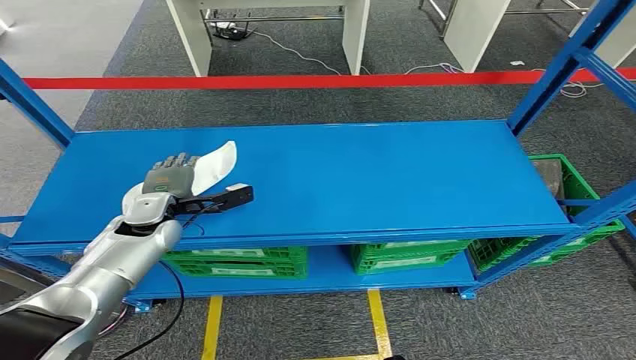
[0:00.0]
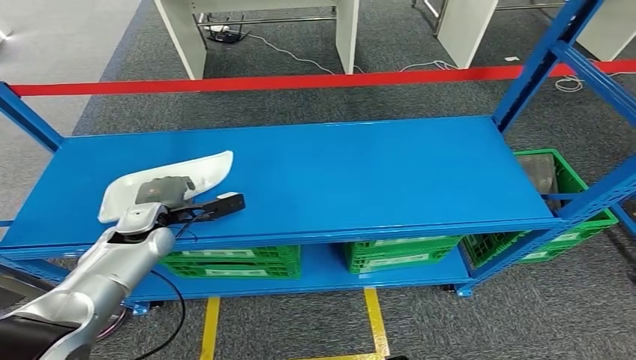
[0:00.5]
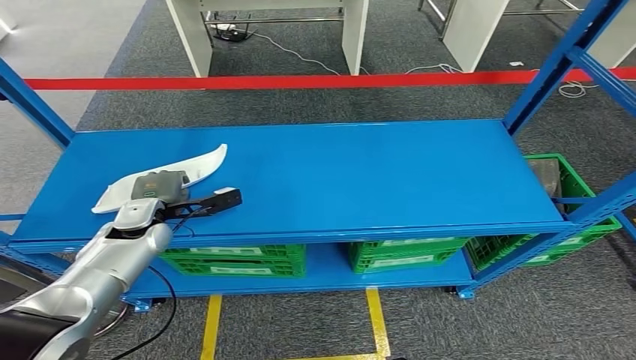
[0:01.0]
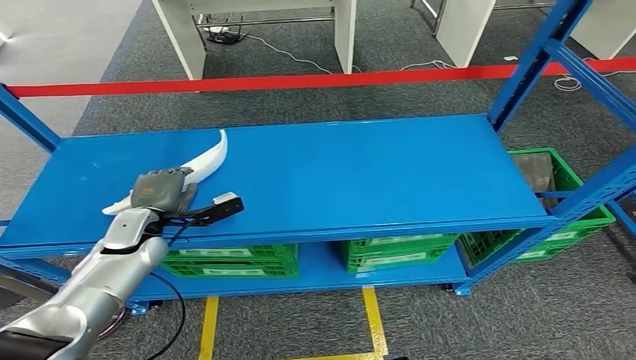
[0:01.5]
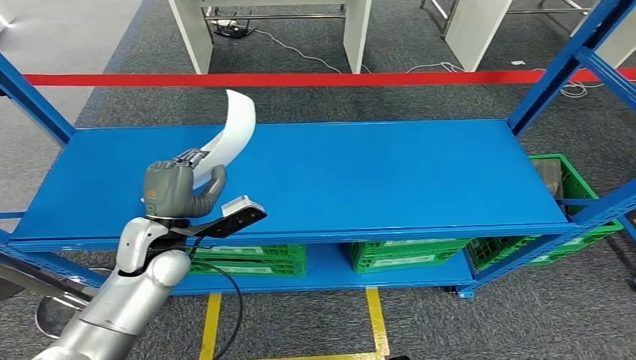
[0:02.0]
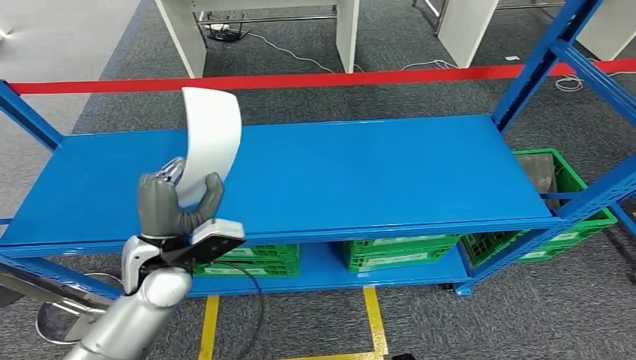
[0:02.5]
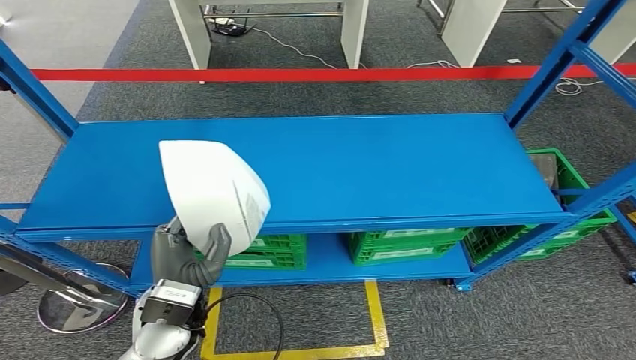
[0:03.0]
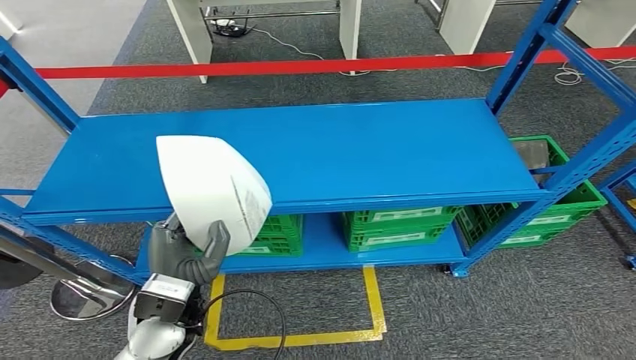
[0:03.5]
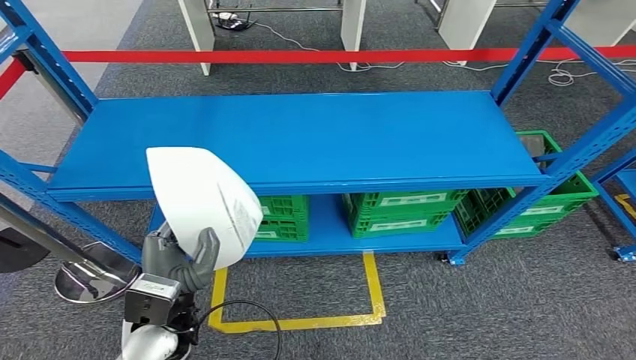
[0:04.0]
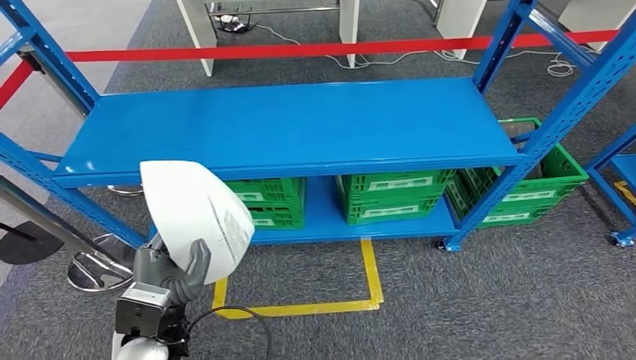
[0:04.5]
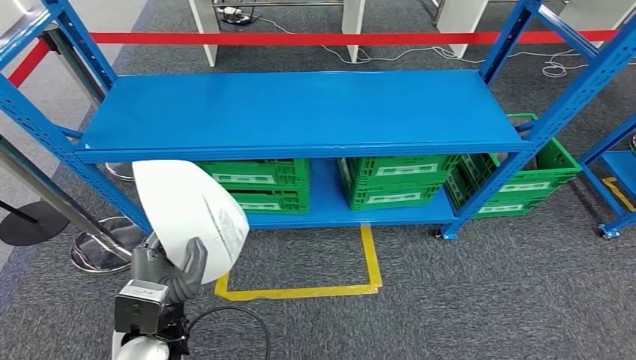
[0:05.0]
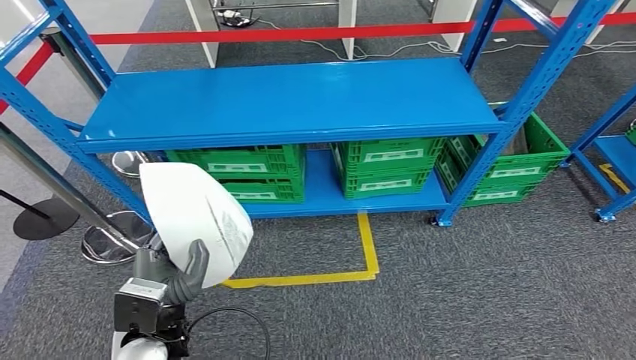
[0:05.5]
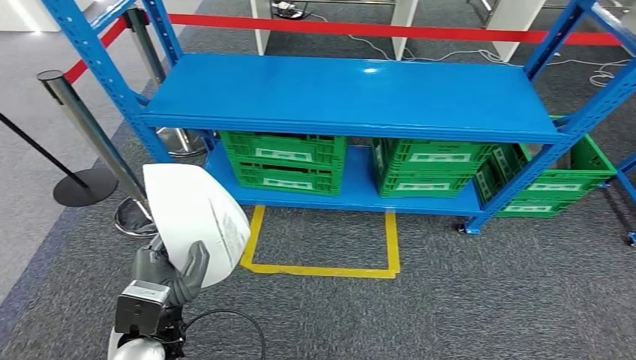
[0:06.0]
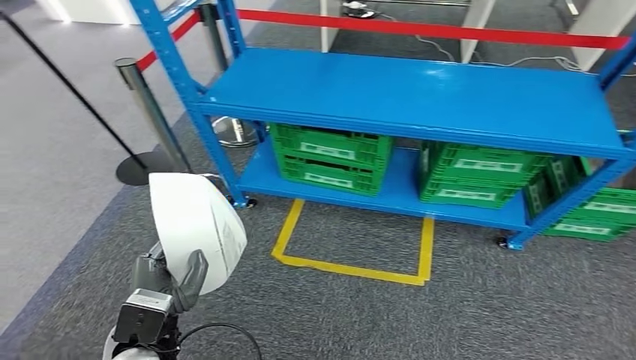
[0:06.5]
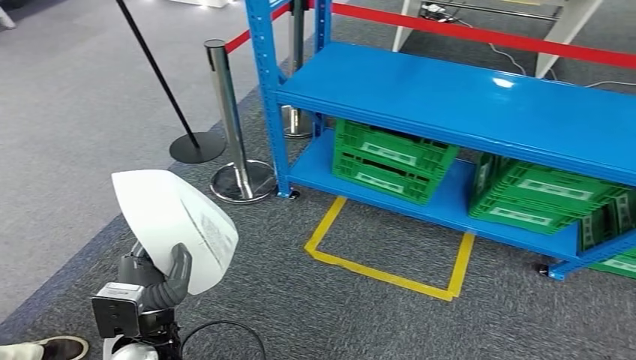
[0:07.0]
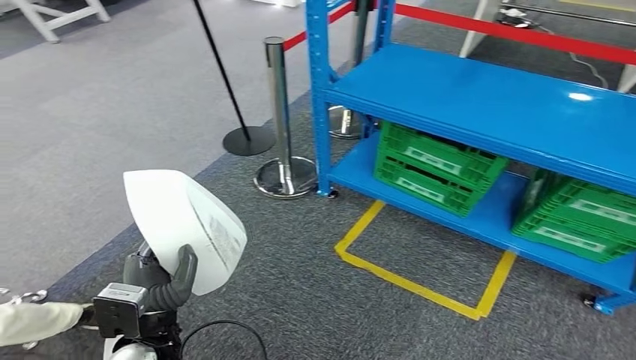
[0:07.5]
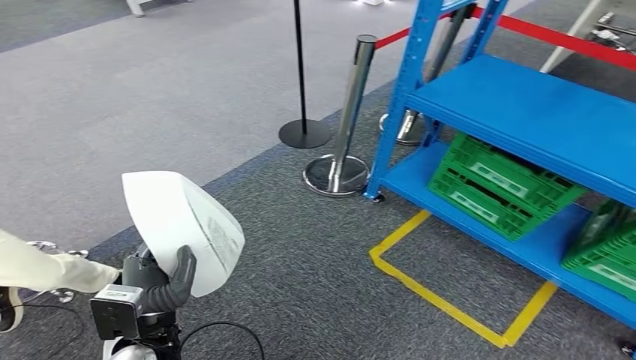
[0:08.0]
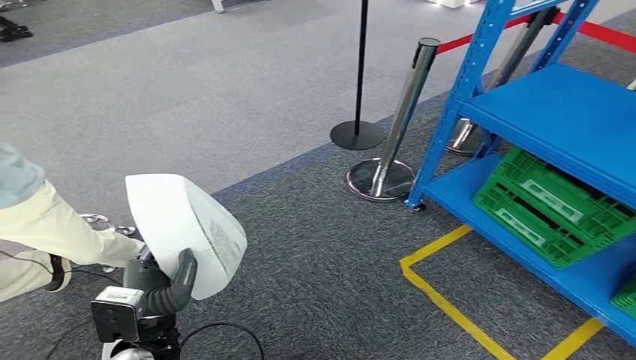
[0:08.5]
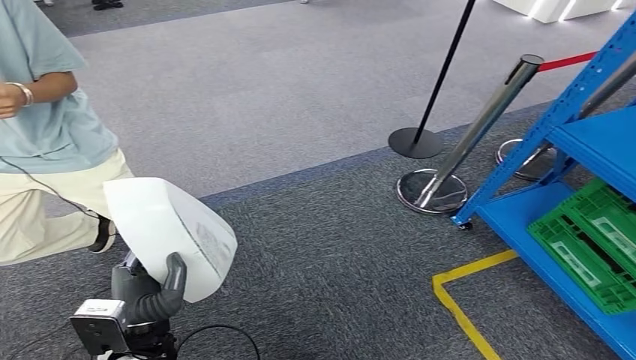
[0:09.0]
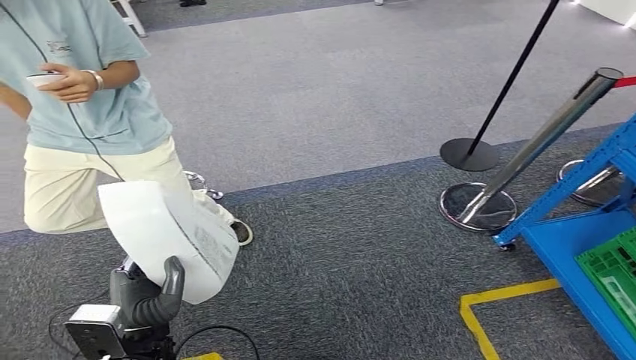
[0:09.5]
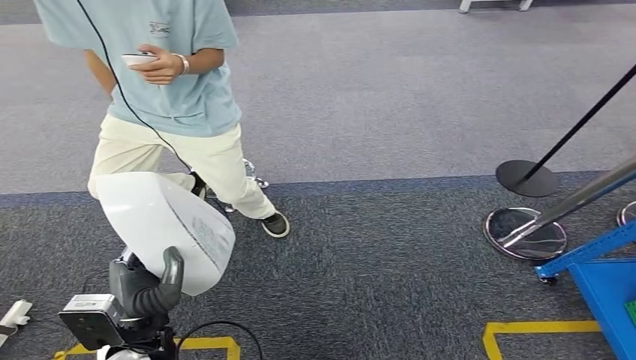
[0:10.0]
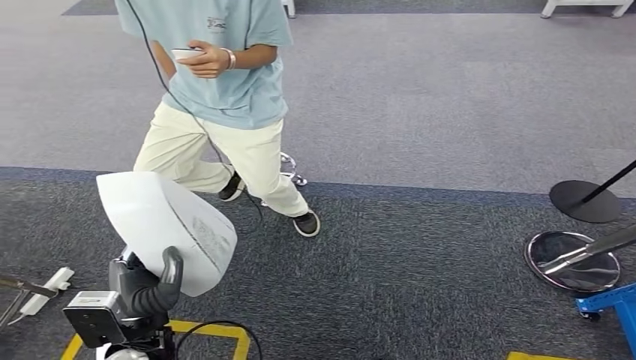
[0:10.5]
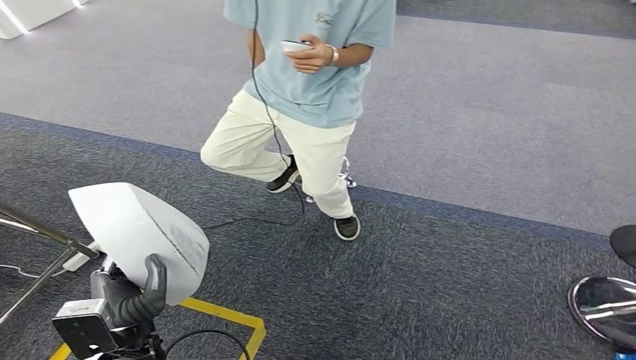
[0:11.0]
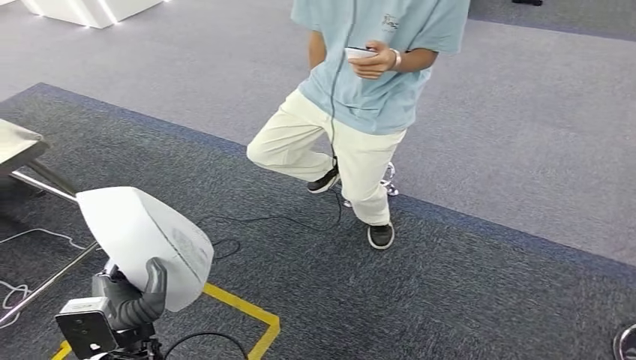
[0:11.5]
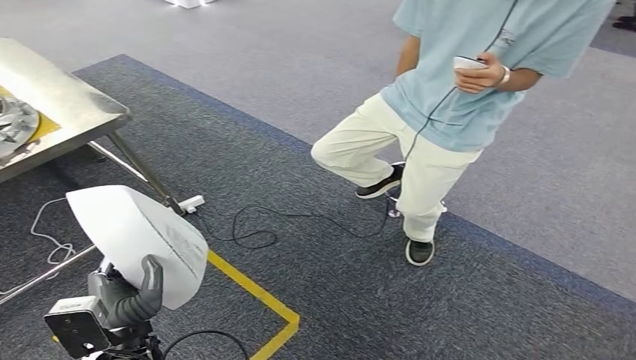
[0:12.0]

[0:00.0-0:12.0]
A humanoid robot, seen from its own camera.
Step, 0:00.0 to 0:03.0: Pick up the small component from the shelf.

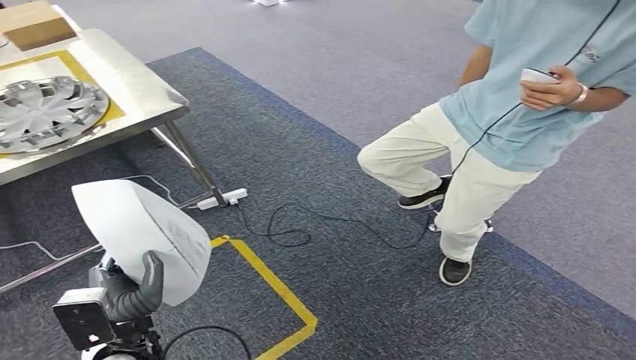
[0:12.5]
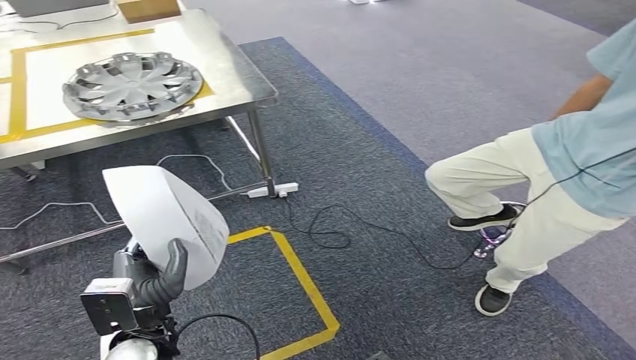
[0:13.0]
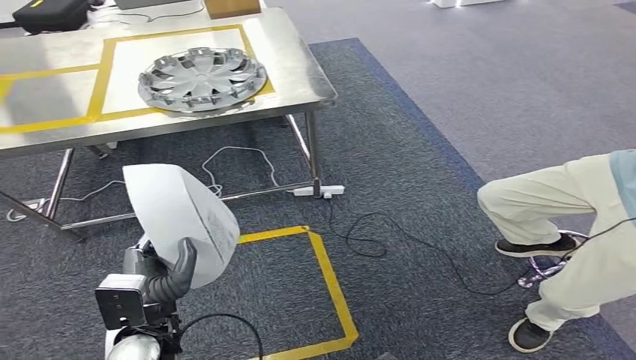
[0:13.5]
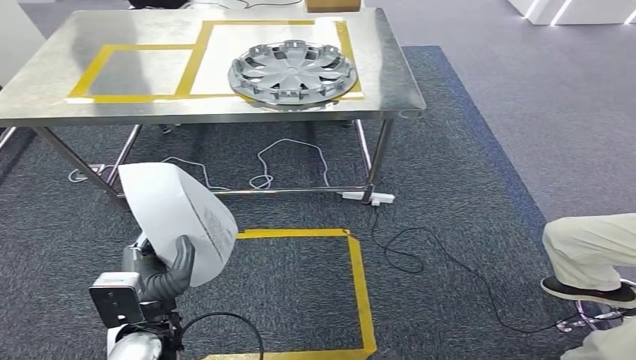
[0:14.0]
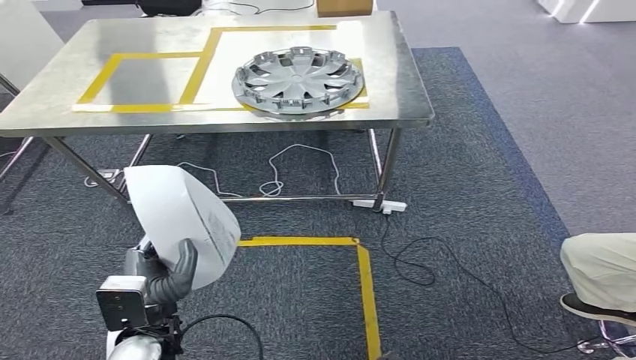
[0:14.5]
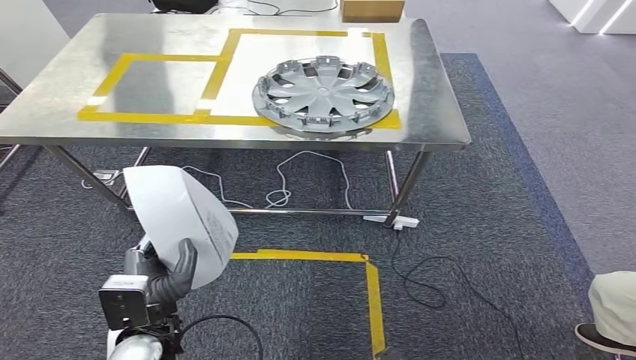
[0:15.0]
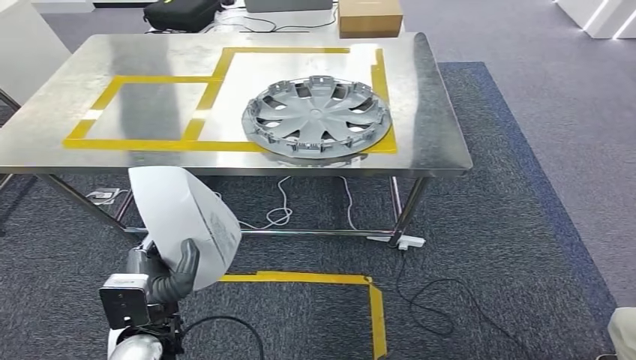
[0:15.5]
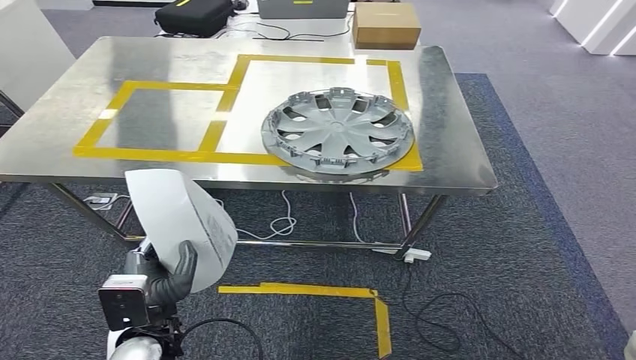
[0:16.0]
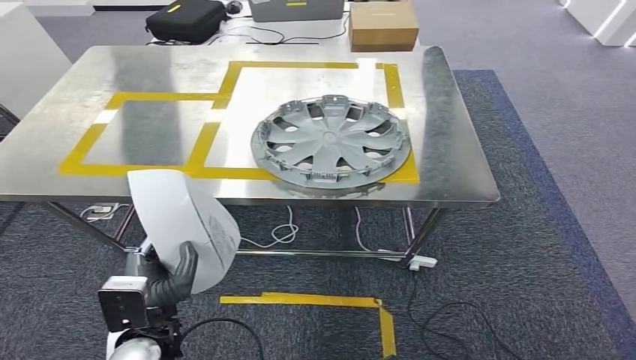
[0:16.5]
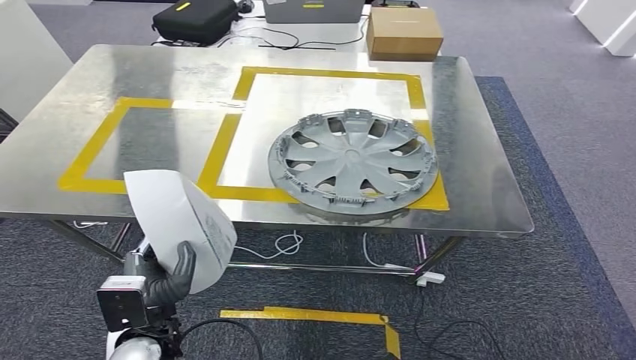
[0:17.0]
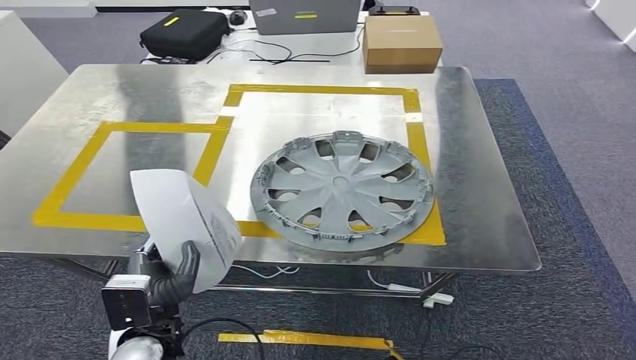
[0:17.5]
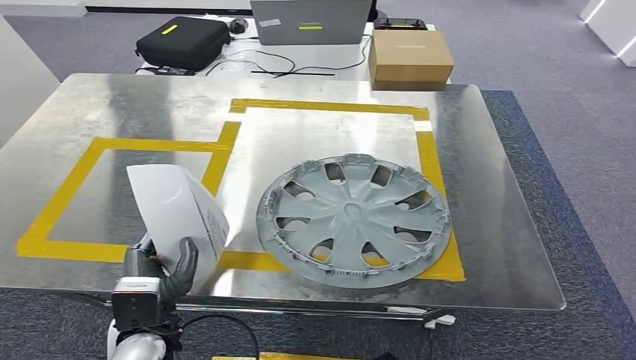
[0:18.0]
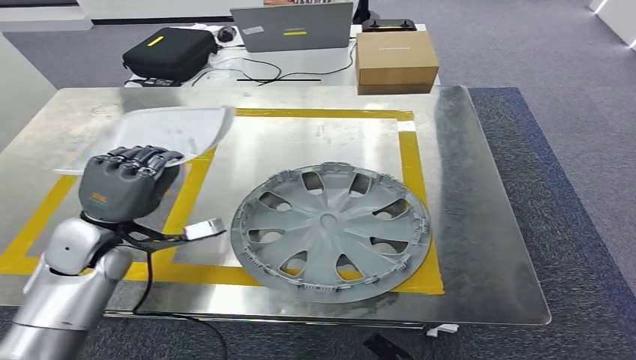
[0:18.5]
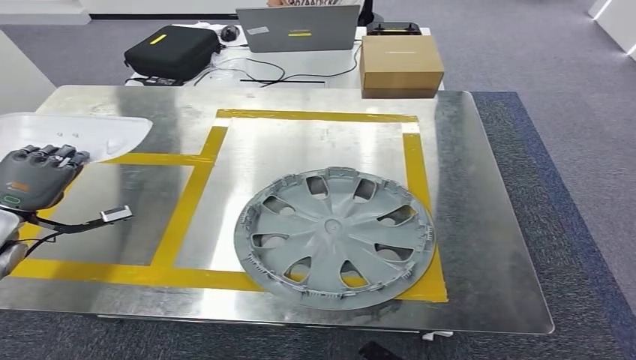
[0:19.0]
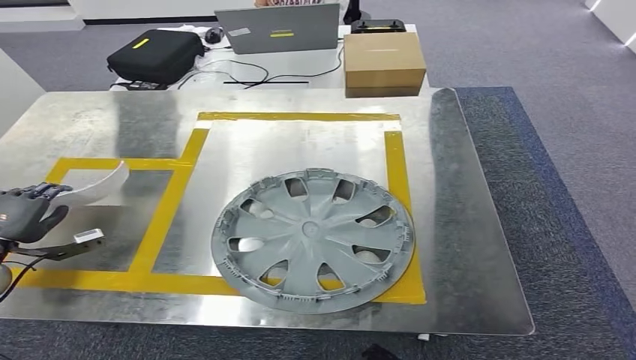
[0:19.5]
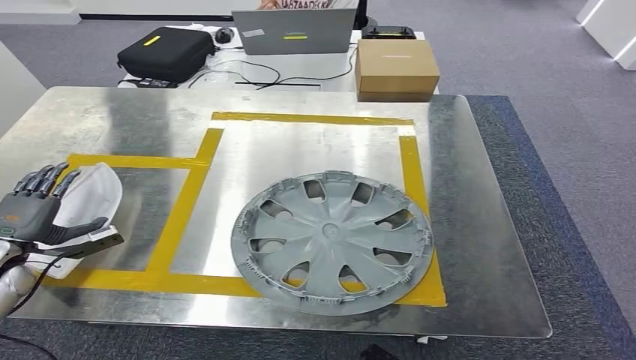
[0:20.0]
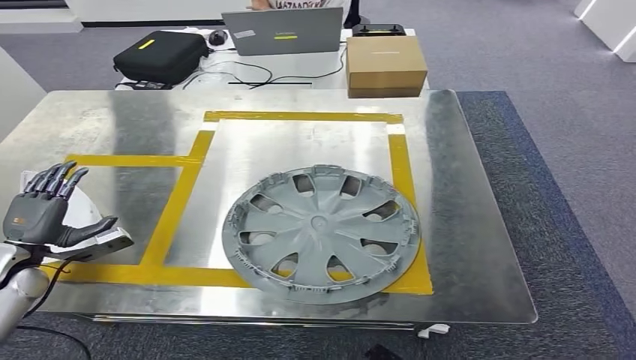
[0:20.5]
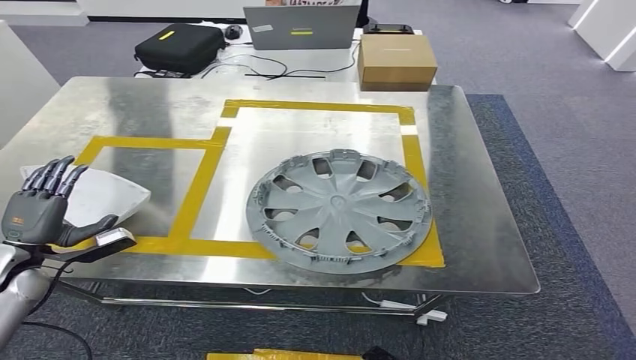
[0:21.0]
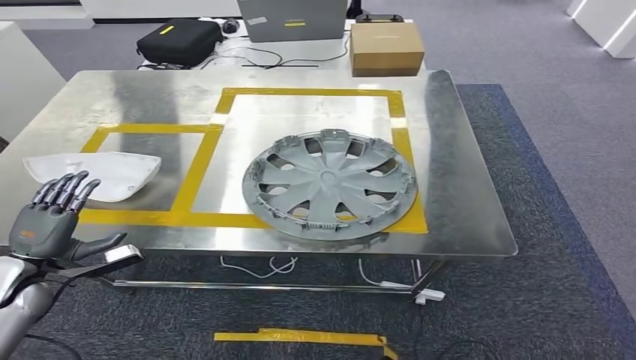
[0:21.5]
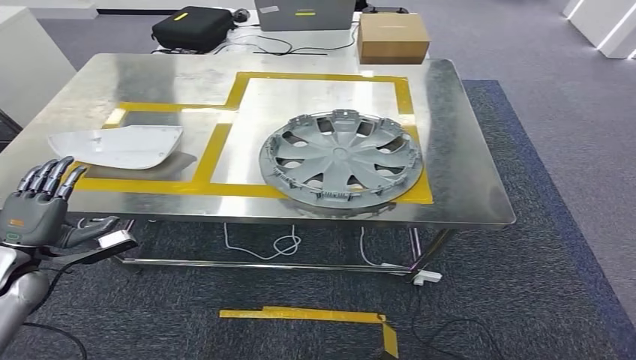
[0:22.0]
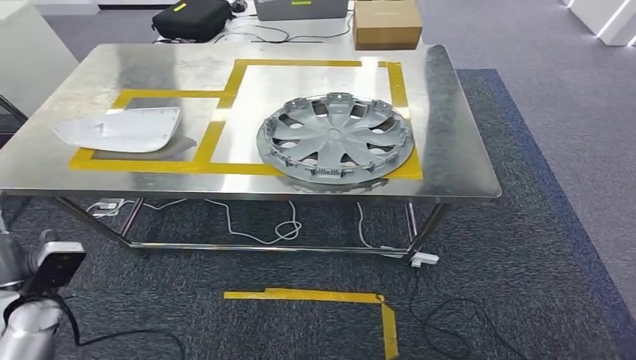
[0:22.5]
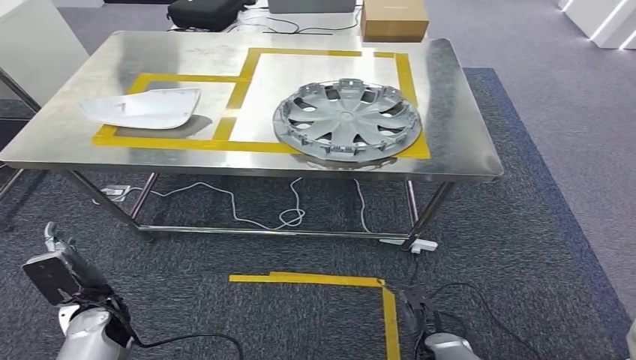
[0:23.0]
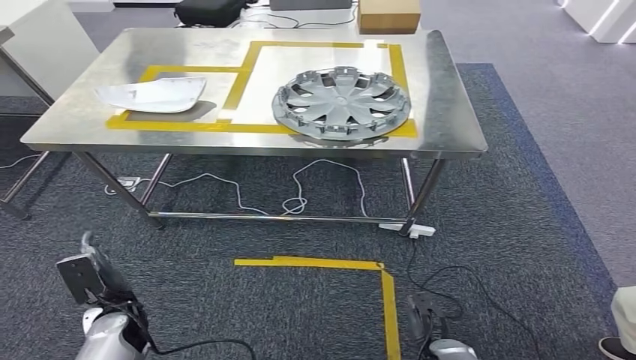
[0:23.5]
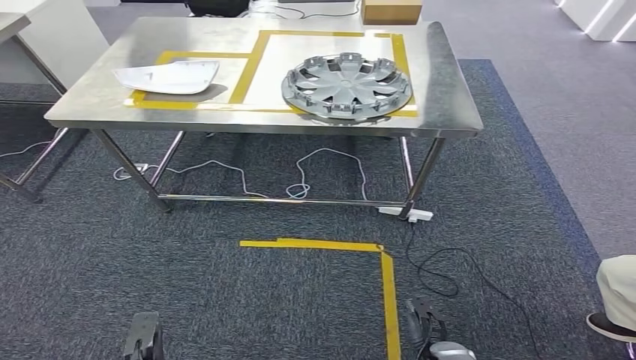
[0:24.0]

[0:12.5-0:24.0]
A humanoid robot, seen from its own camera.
Step, 0:12.5 to 0:15.0: Move the small component to the workbench.
Step, 0:15.5 to 0:22.0: Insert the small component into the corresponding slot on the workbench.
